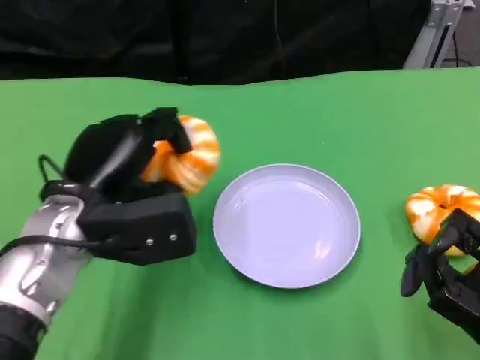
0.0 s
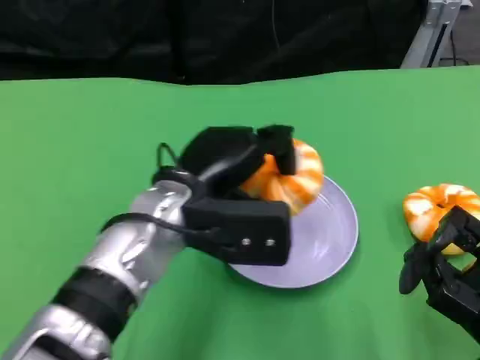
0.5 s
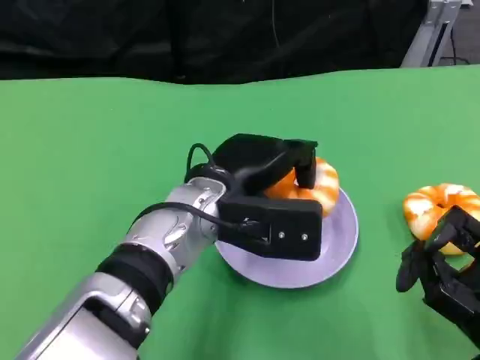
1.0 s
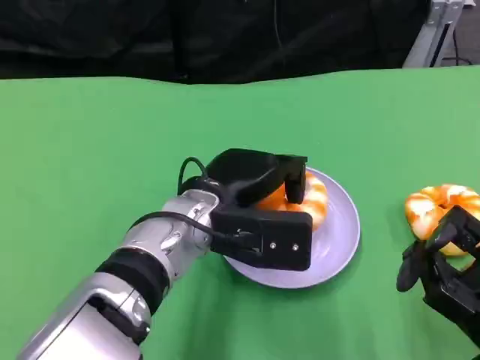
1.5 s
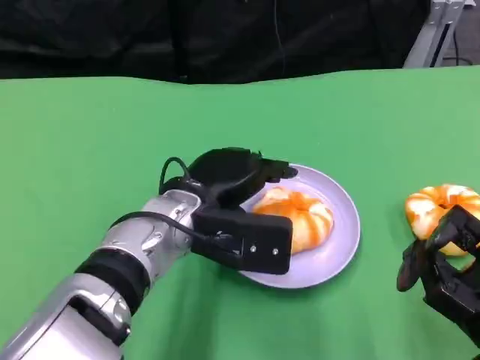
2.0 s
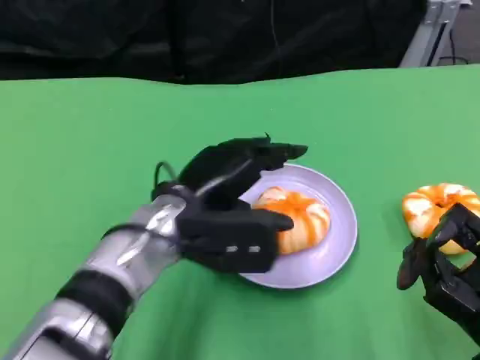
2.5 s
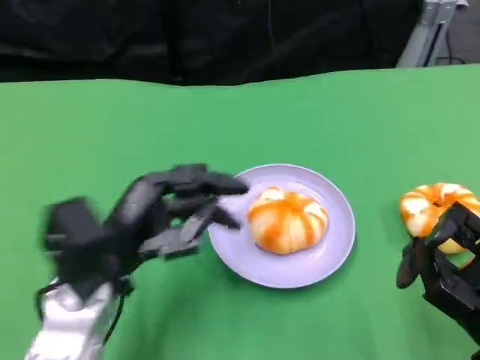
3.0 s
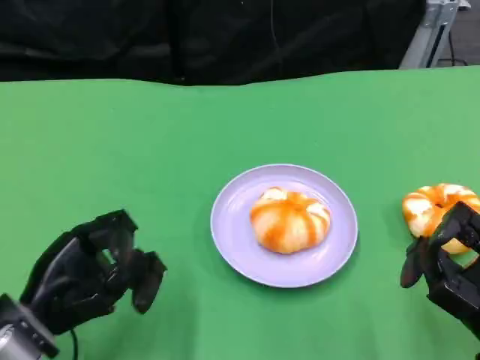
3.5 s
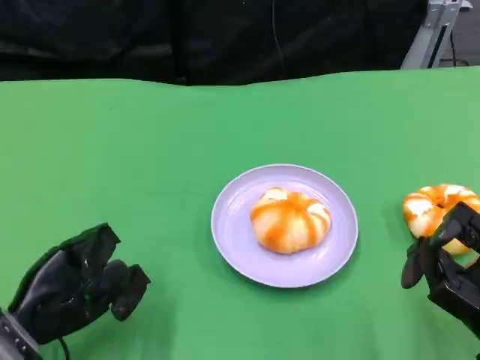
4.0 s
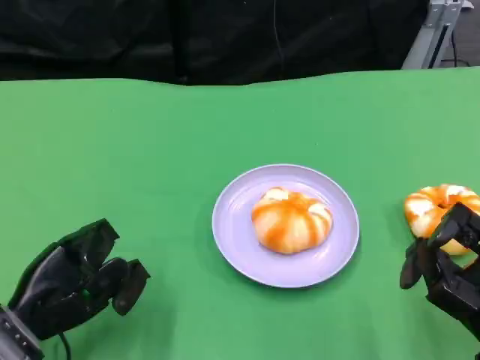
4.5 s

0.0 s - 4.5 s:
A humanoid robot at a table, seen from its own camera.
Task of the whole recording: Grasp the bread from the table and place it into the plate.
0.0 s - 2.0 s: The left hand is displaced to the right by approximately 10 cm.
2.0 s - 4.5 s: The left hand travels to the left, backward and downward by some 20 cm.

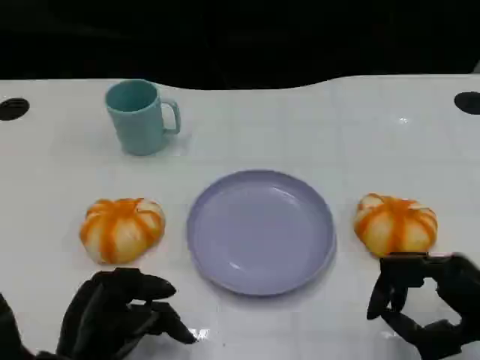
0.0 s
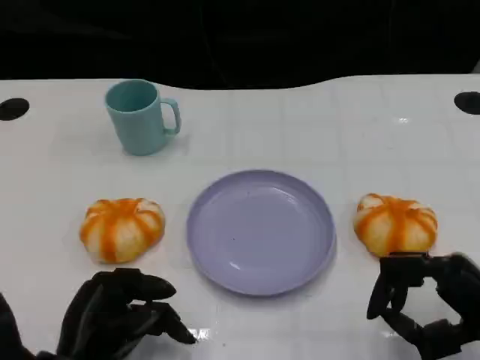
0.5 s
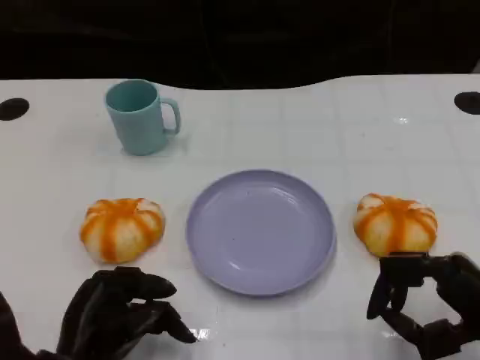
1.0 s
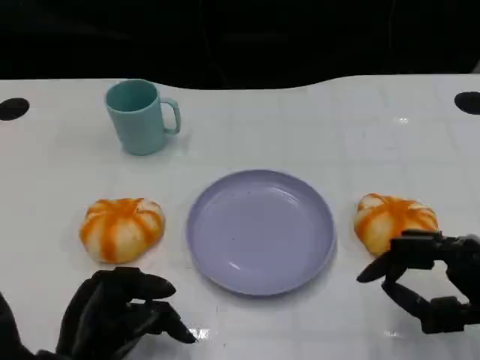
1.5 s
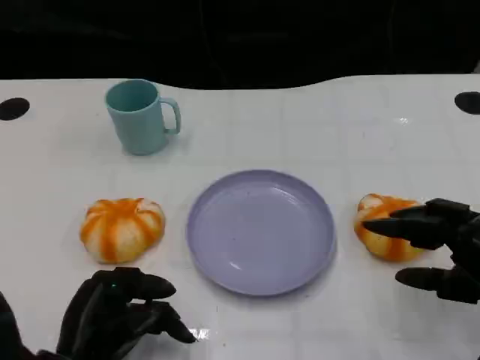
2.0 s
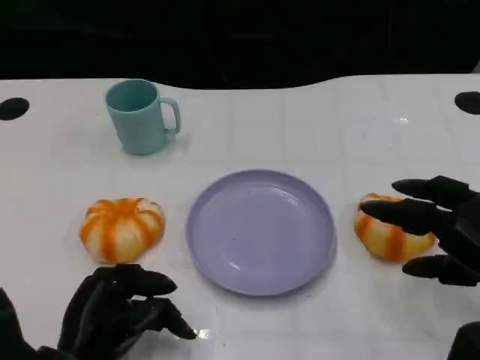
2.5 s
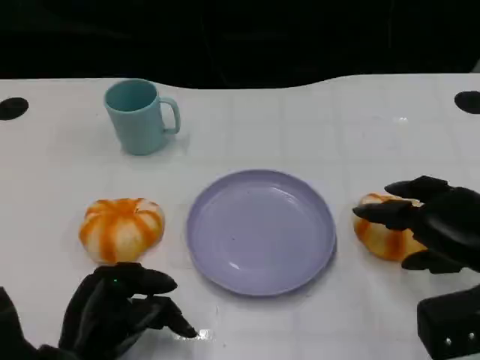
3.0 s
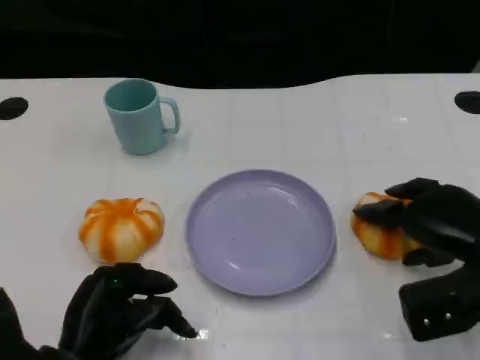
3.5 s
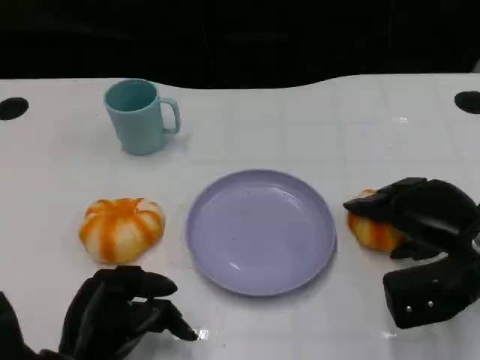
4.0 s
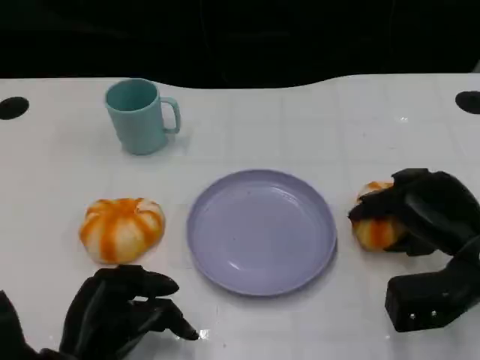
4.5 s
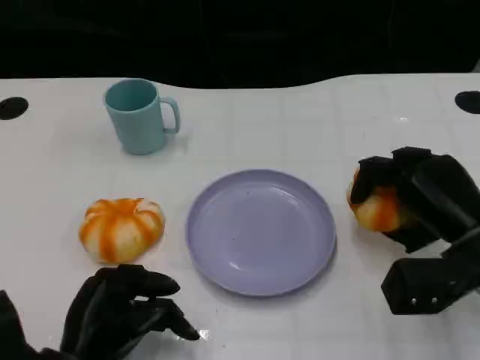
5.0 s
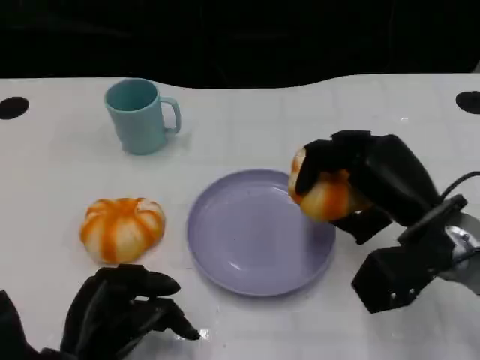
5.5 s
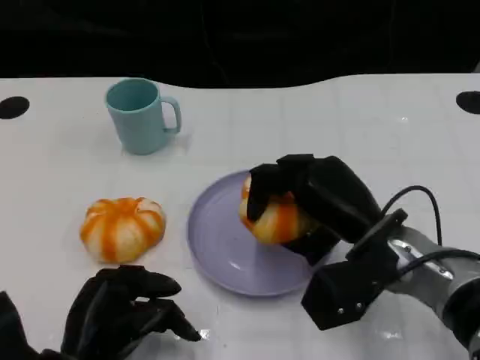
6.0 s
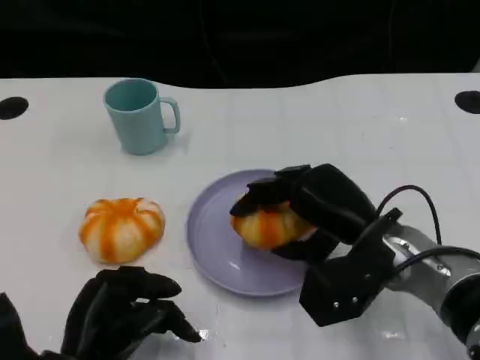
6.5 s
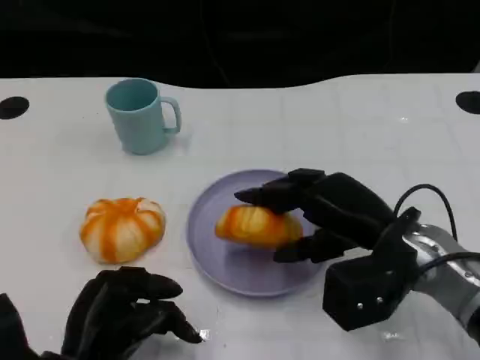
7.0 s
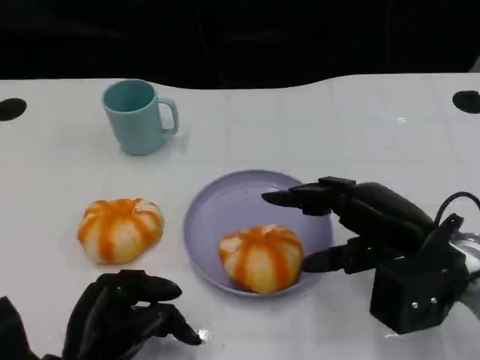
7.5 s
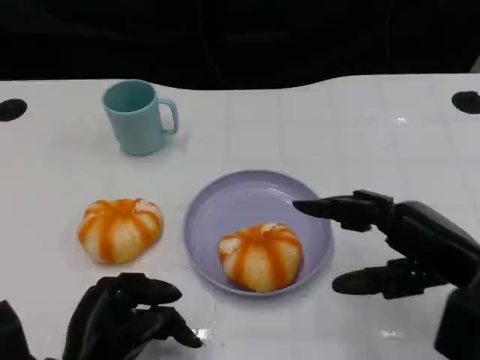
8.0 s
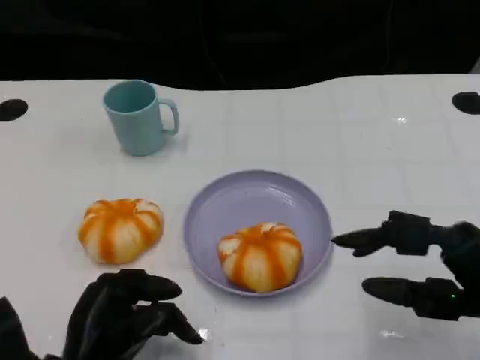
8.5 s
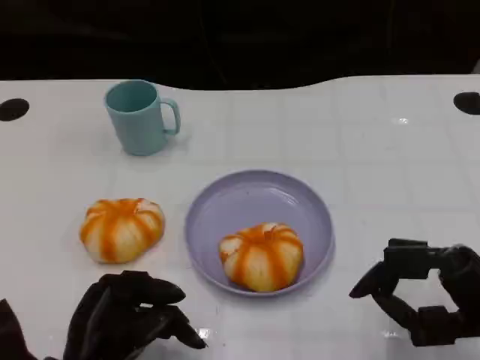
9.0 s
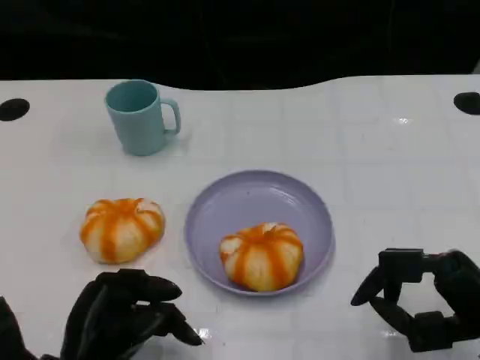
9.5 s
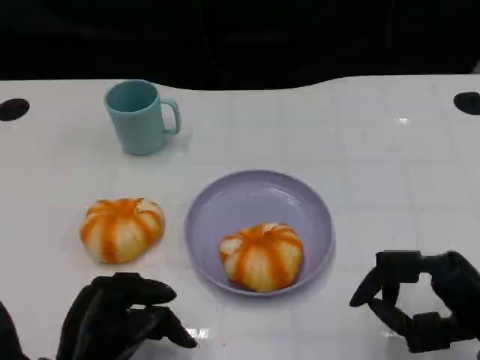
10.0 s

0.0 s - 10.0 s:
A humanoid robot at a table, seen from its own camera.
Task of the whole recording: Grasp the bread from the table and place it into the plate.
2.0 s - 4.0 s: The right hand heads forward, covering approximately 10 cm.
4.0 s - 6.0 s: The right hand moves to the left, roughly 10 cm.
6.0 s - 8.0 s: The right hand is displaced to the right and backward by about 10 cm.
8.0 s - 10.0 s: The right hand heads downward, covering roughly 5 cm.

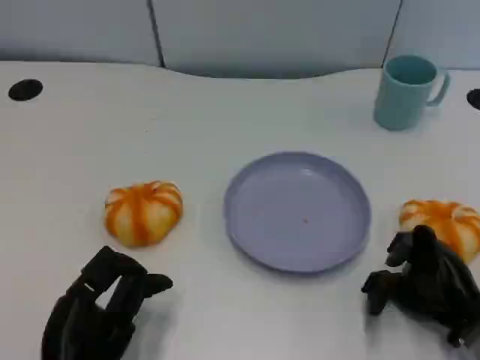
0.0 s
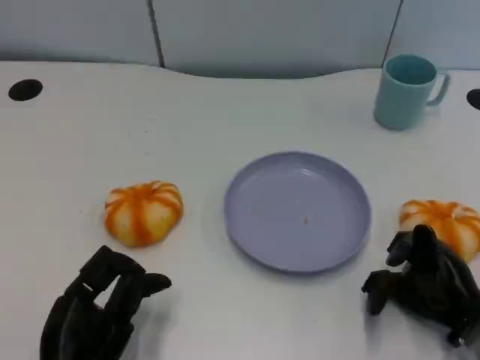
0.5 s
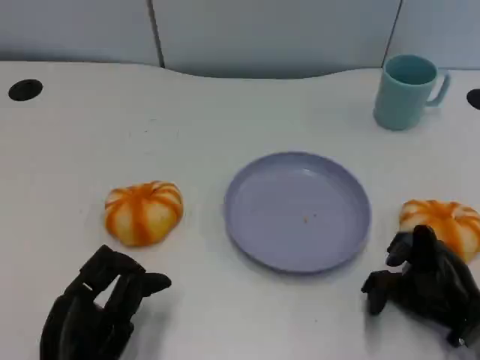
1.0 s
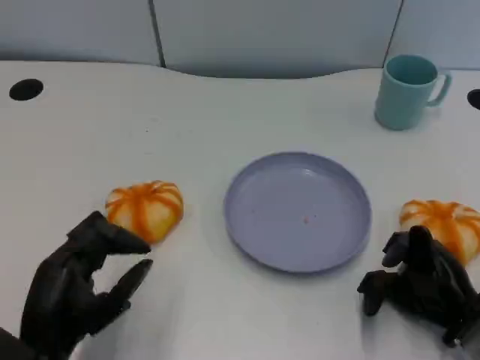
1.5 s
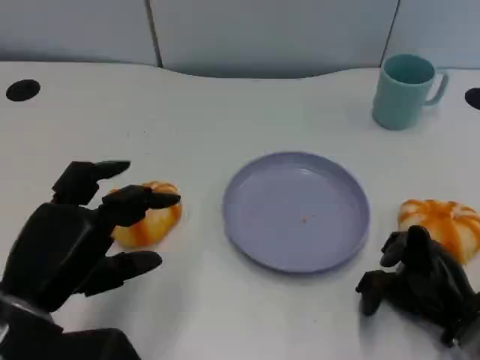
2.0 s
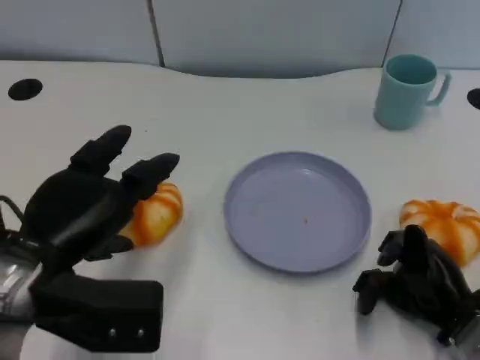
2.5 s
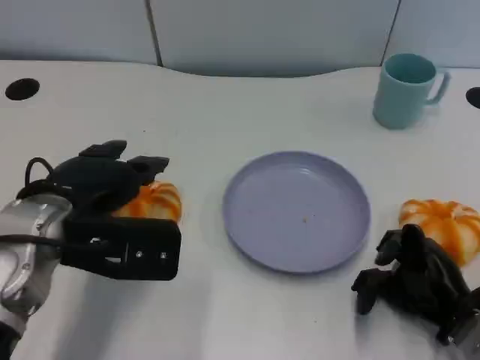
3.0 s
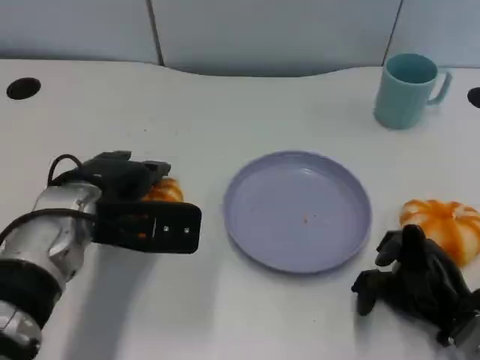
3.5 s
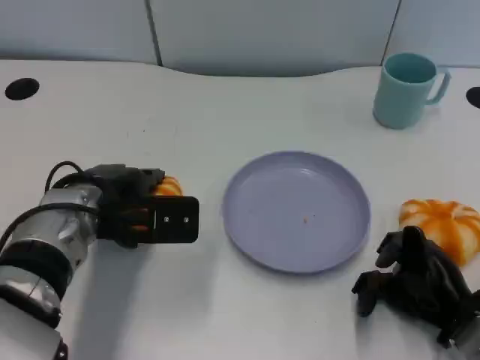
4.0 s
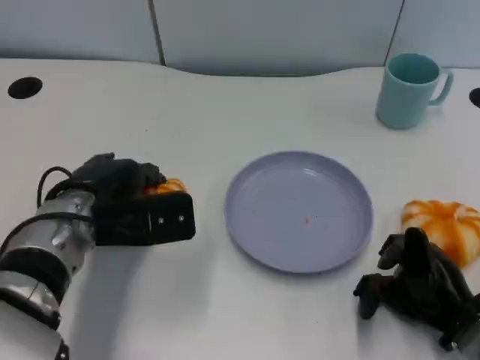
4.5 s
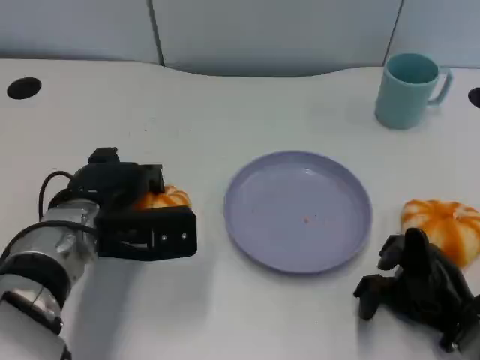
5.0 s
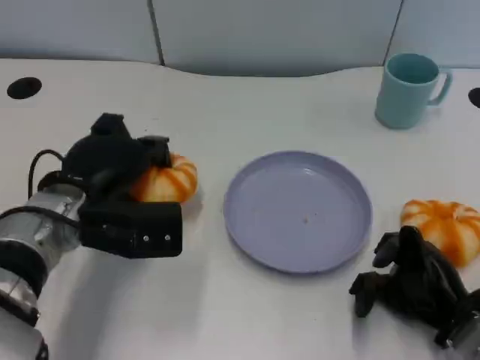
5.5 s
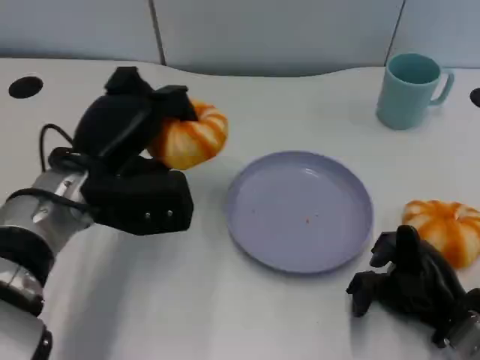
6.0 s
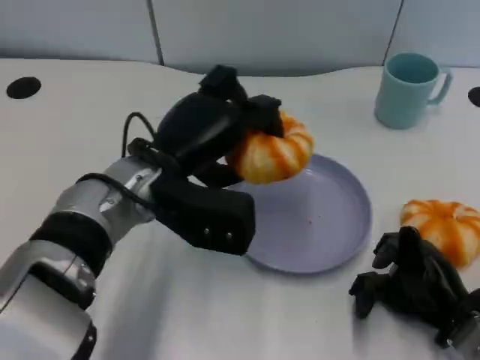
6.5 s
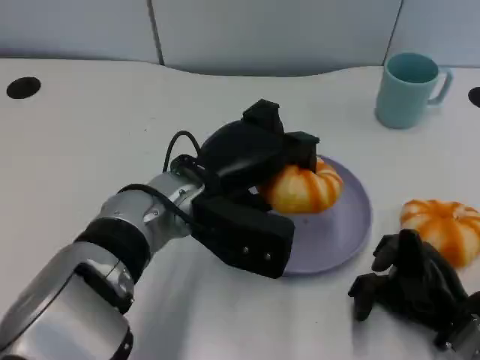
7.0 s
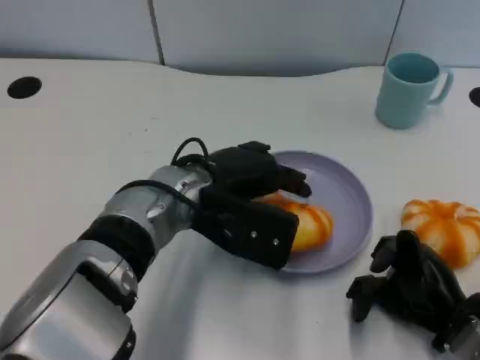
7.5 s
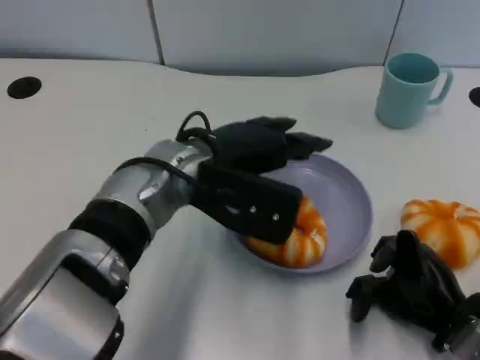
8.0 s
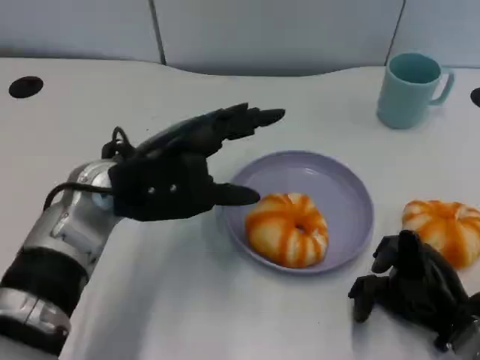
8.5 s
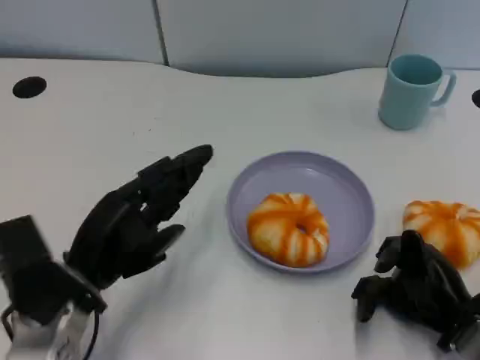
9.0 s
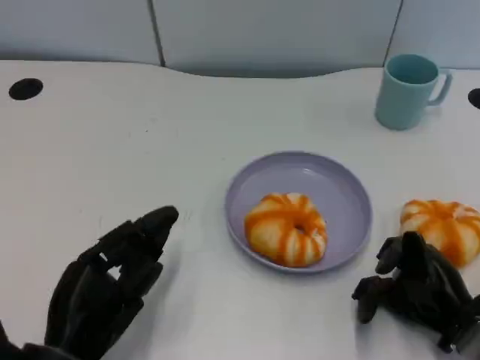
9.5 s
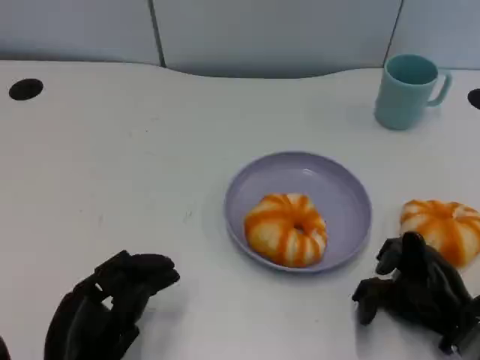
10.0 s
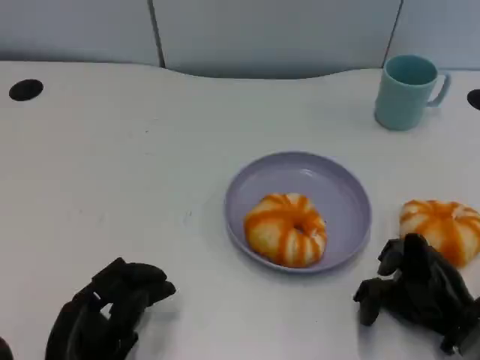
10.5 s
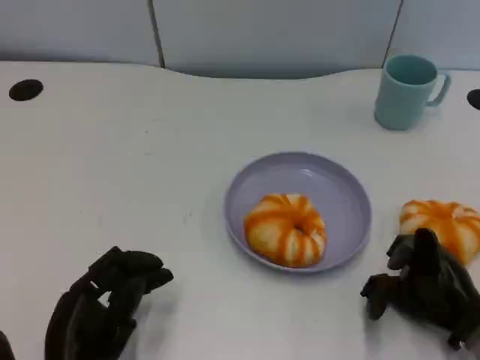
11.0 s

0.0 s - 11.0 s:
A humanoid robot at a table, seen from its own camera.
Task of the whole recording: Grasp the bread from the table and place it into the plate.
0.0 s - 2.0 s: The left hand is displaced upward by about 10 cm.
2.0 s - 3.5 s: The left hand heads forward and to the right, covering approximately 15 cm.
5.5 s - 7.5 s: The left hand travels to the right by about 10 cm.
7.5 s - 9.0 s: The left hand goes some 15 cm to the left, backward and downward.
9.0 s - 11.0 s: The left hand is displaced backward by some 10 cm.
